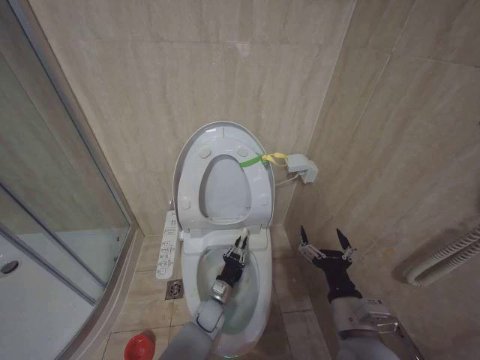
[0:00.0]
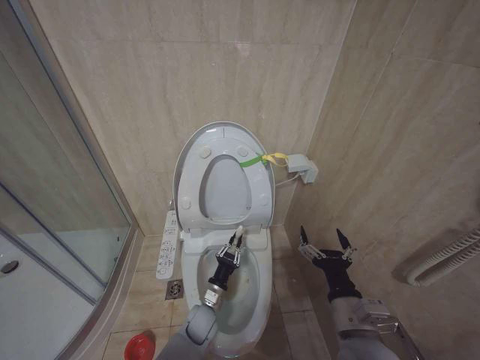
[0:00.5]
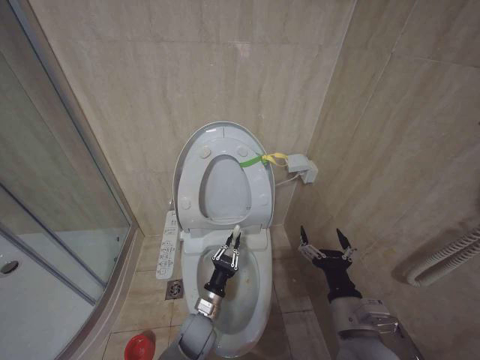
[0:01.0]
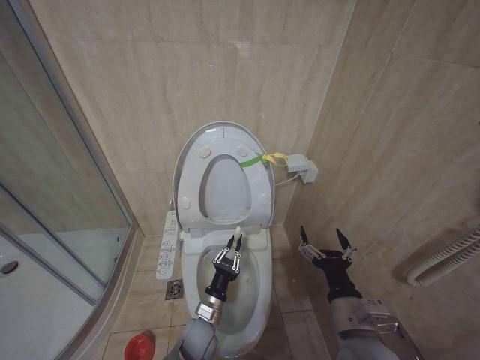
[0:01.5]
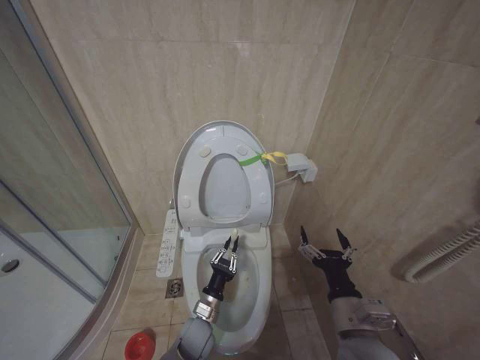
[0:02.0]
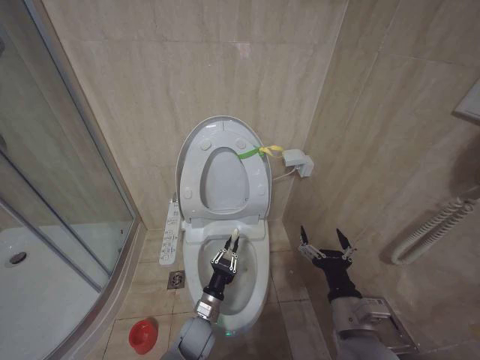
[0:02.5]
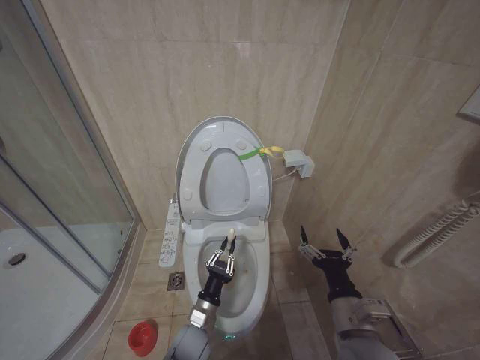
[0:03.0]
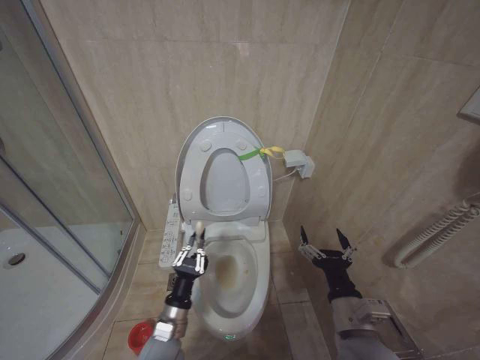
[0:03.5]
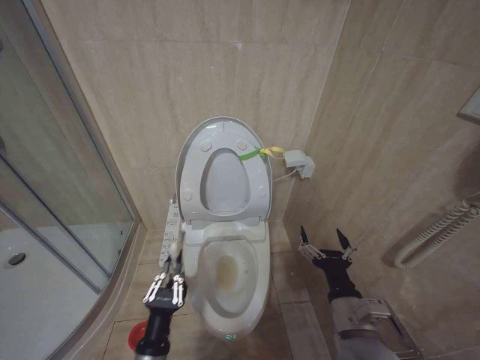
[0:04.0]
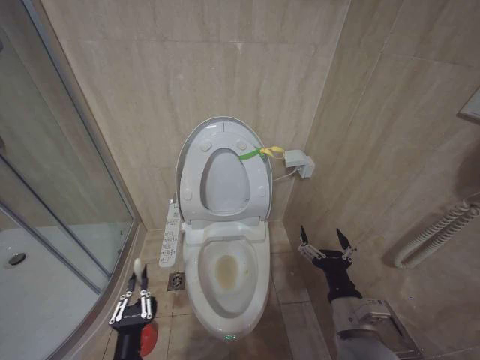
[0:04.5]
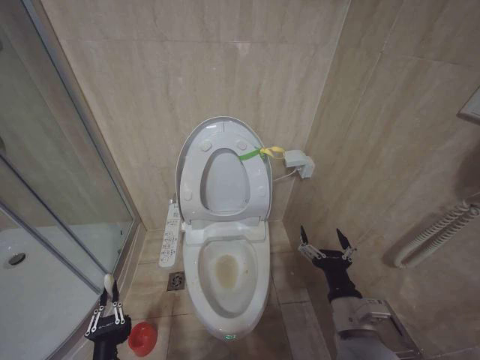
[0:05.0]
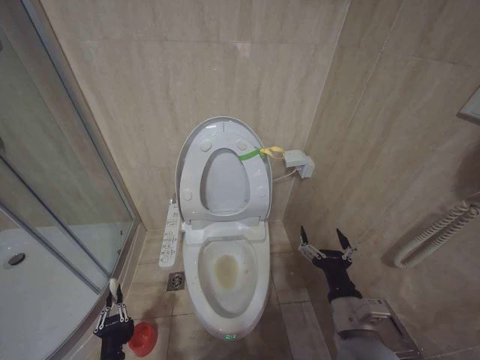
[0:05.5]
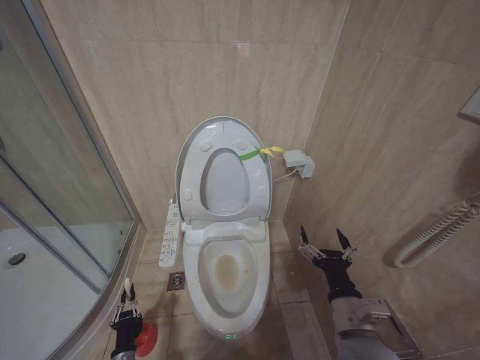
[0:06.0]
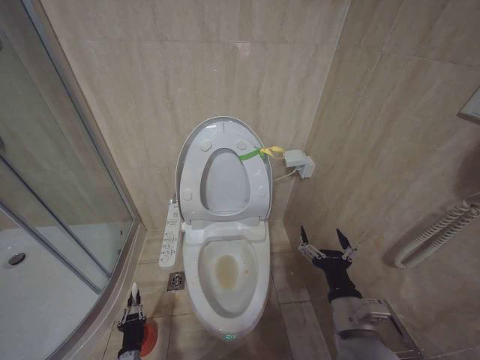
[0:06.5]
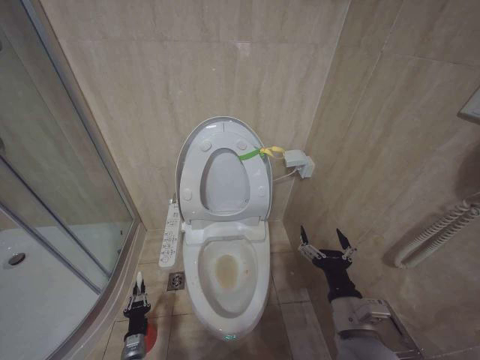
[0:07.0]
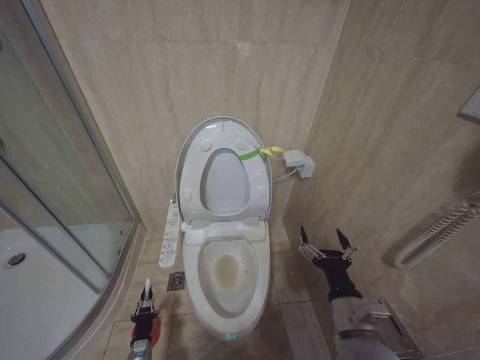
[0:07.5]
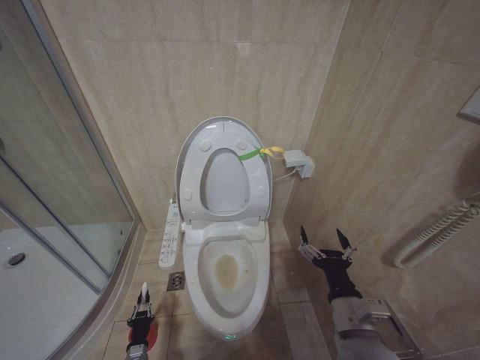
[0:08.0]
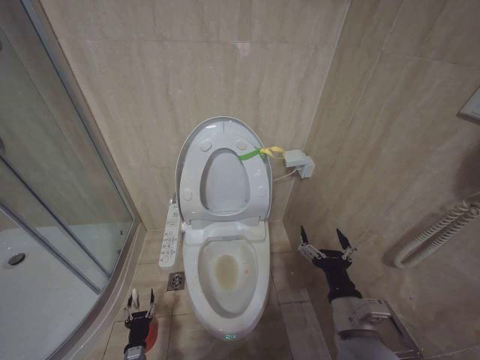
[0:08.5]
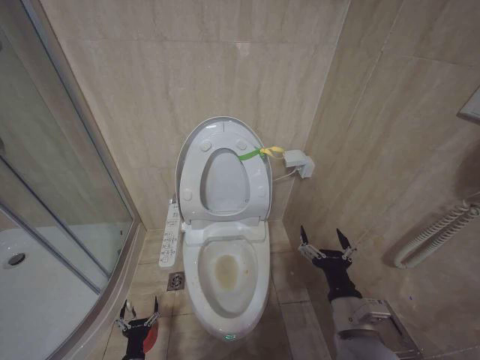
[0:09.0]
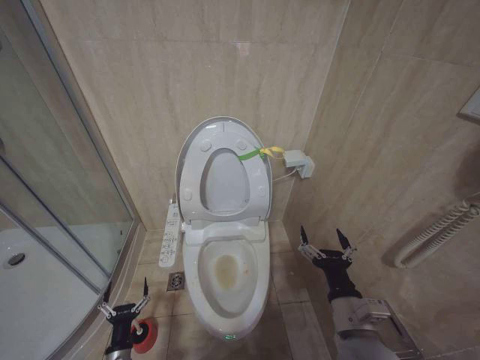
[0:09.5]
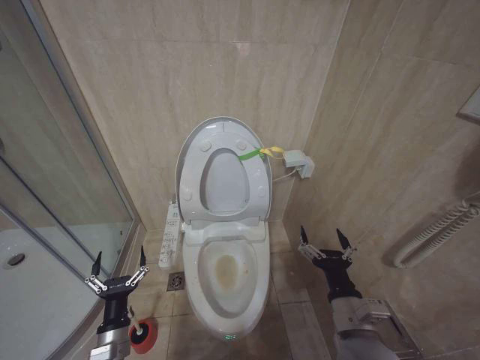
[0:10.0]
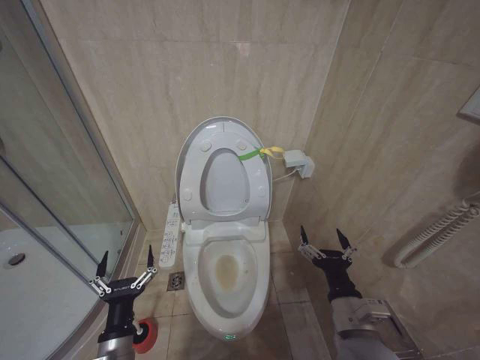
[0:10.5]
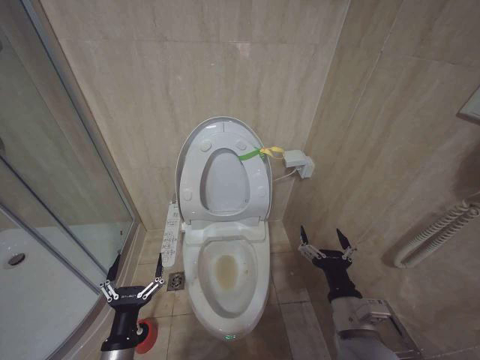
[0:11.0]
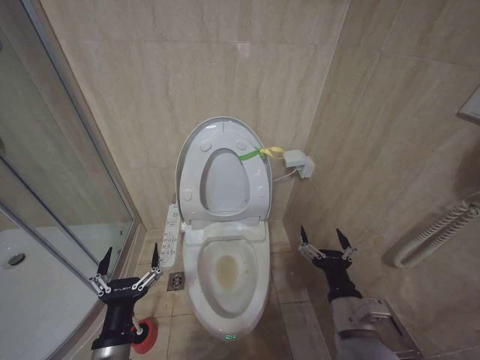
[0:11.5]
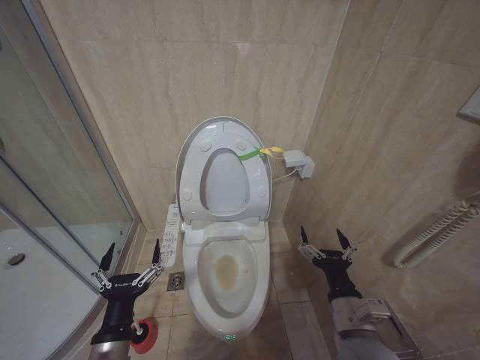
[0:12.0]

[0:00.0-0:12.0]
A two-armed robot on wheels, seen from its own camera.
Task of the whole recording: Open the toilet lid, clean the toilet bowl with a toilet brush, close the toilet lid, and flush.
0:00.0 to 0:02.0: The left gripper heads backward and upward, covering about 10 cm.
0:02.0 to 0:04.0: The left gripper goes roughly 20 cm backward, upward and to the left.
0:04.0 to 0:06.0: The left gripper shifts about 25 cm downward and to the left.
0:06.0 to 0:08.0: The left gripper heads downward, covering some 5 cm.
0:08.0 to 0:10.0: The left gripper shifts about 25 cm upward, and opens.
0:10.0 to 0:12.0: The left gripper shifts about 15 cm upward and backward.

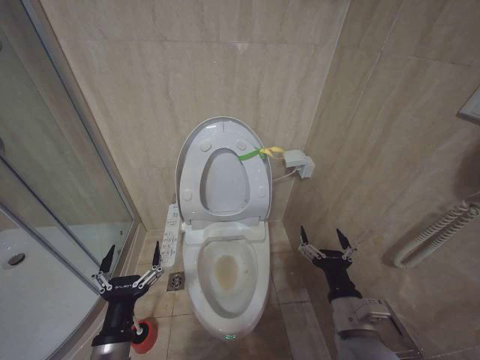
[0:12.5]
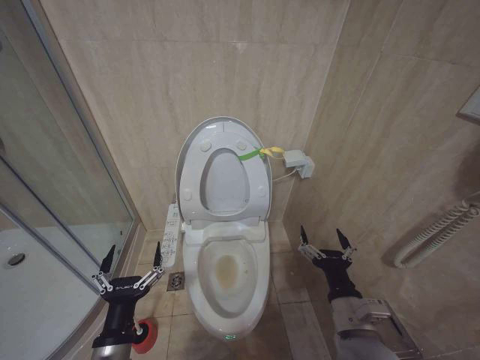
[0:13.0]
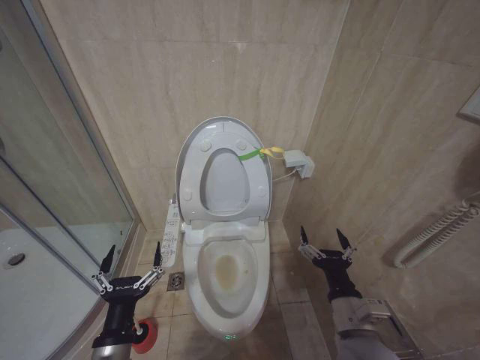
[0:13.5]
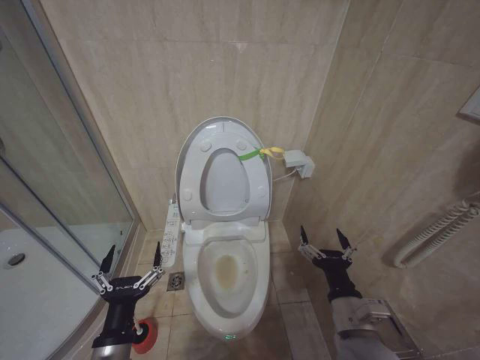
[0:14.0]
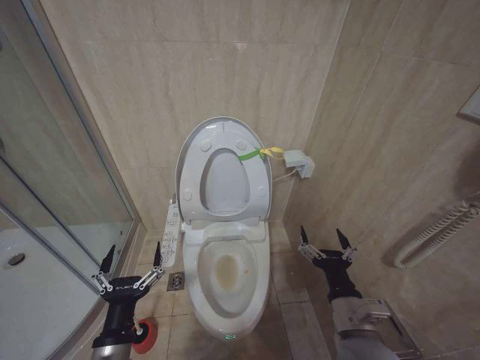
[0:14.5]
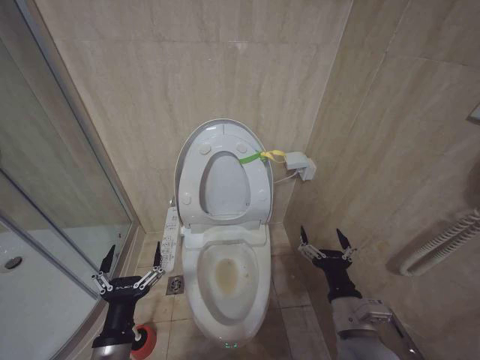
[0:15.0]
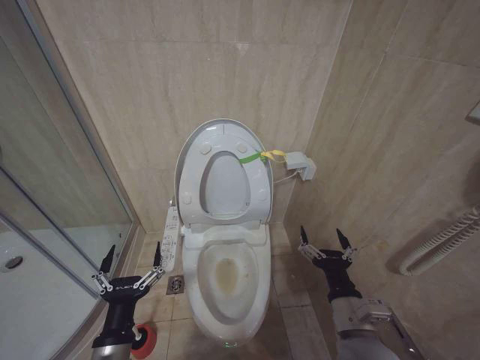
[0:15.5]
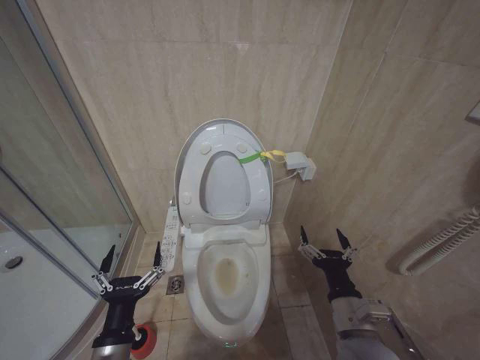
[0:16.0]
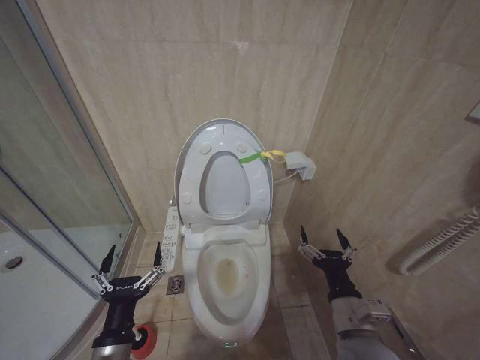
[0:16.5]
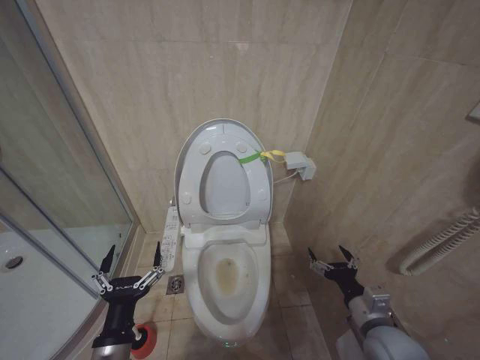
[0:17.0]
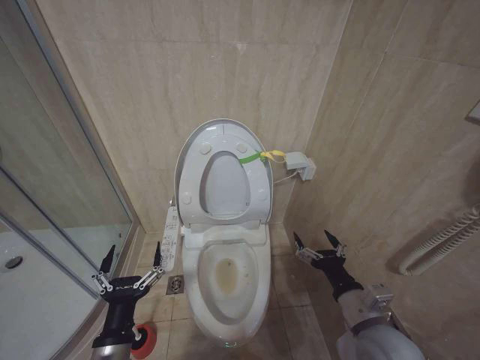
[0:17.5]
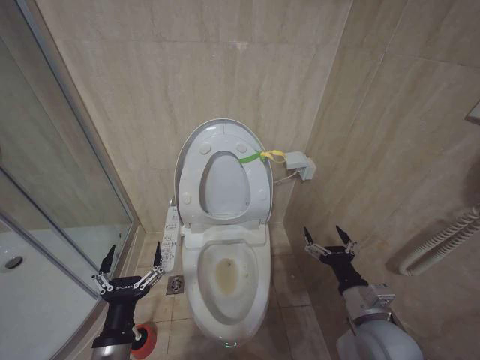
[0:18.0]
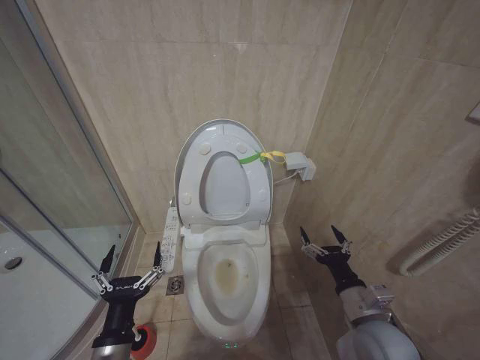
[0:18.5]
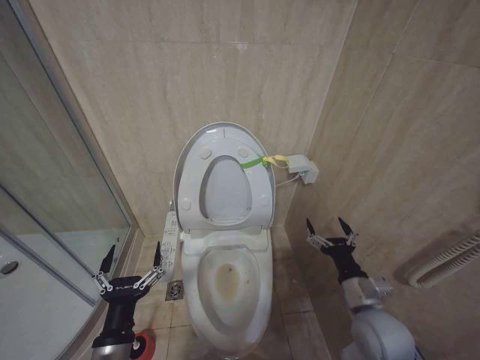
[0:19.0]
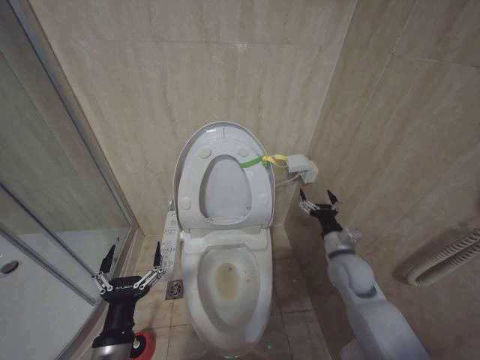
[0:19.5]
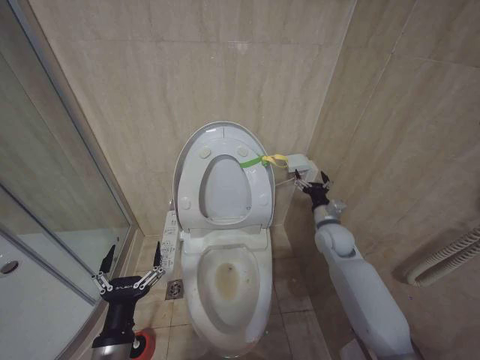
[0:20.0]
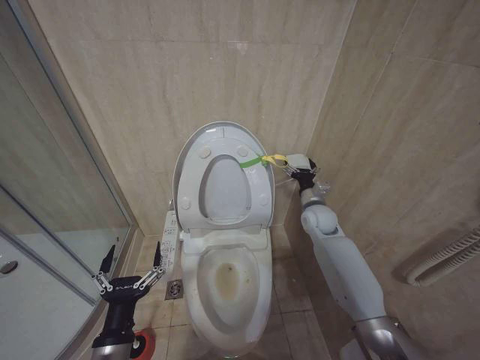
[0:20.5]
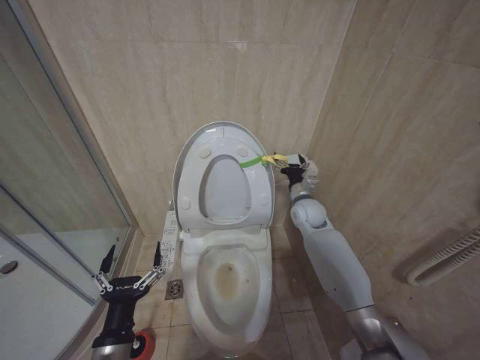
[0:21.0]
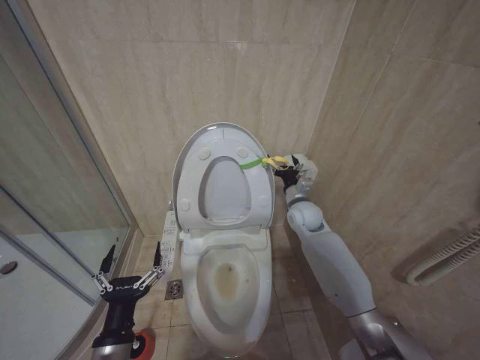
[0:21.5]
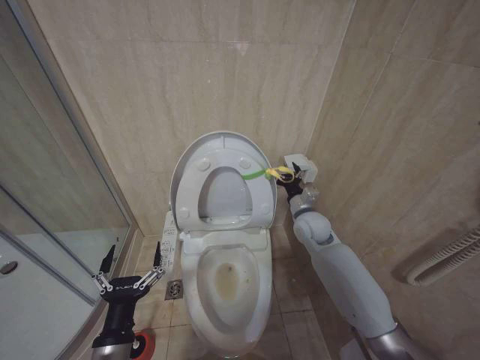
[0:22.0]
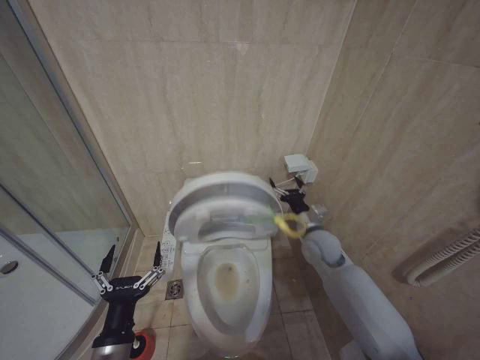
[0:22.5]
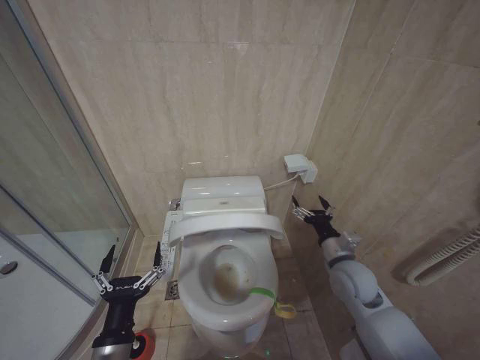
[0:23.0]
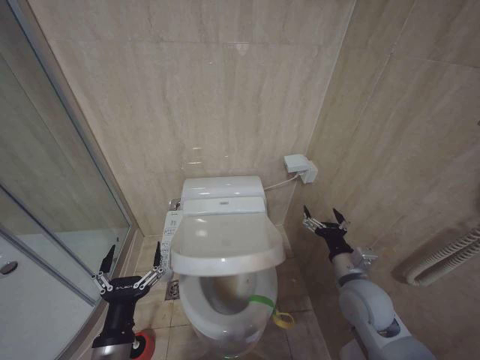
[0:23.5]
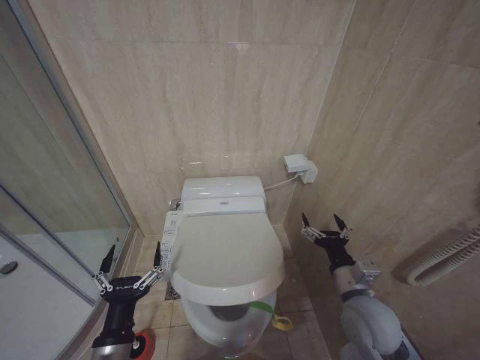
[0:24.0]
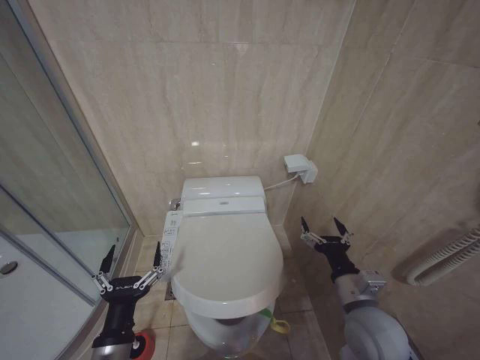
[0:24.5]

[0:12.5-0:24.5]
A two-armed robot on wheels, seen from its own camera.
Task of the whole recording: Open the toilet lid, clean the toilet bowl with a toilet brush, close the toilet lid, and flush.
0:12.5 to 0:16.5: Neither gripper changes place.
0:16.5 to 0:18.5: The right gripper travels to the right by approximately 5 cm.
0:18.5 to 0:20.5: The right gripper travels forward by approximately 30 cm.
0:20.5 to 0:22.5: The right gripper is displaced backward by roughly 5 cm.
0:22.5 to 0:24.5: The right gripper heads backward, covering approximately 20 cm.

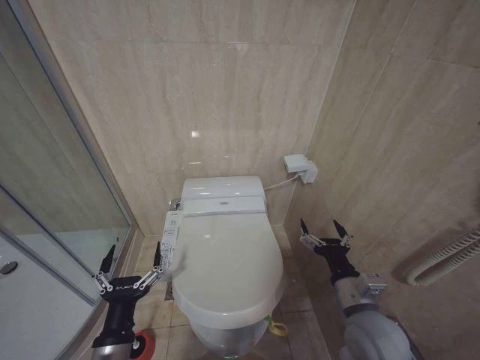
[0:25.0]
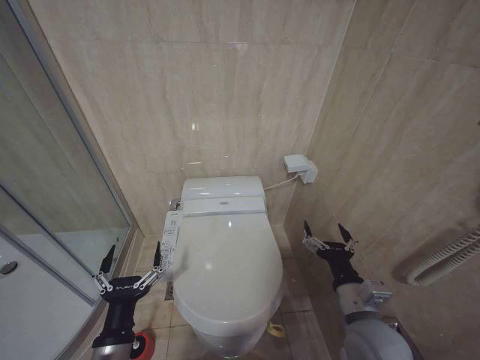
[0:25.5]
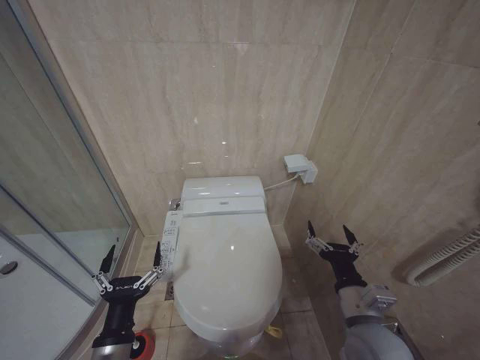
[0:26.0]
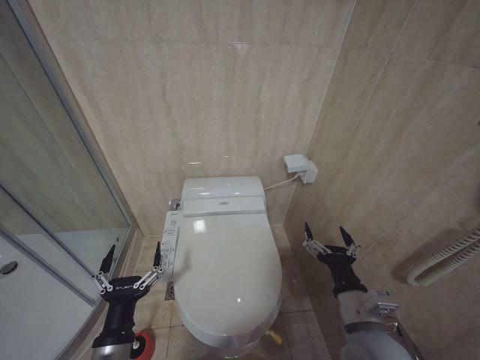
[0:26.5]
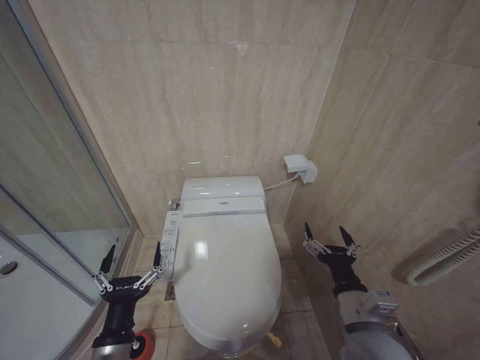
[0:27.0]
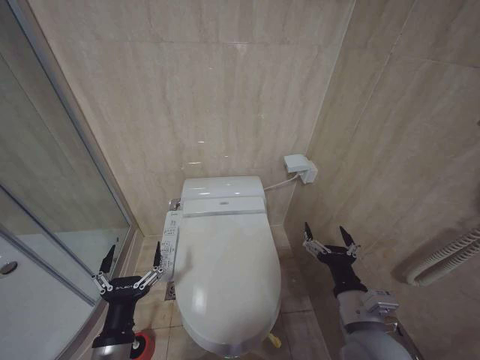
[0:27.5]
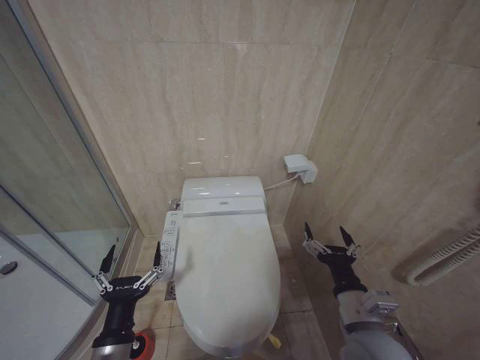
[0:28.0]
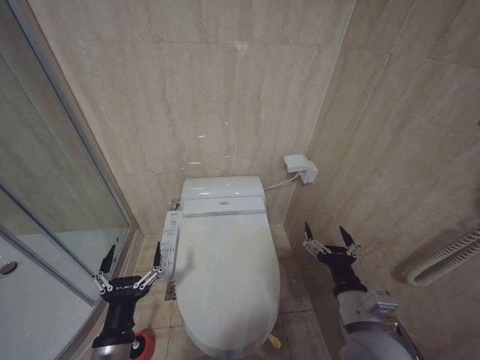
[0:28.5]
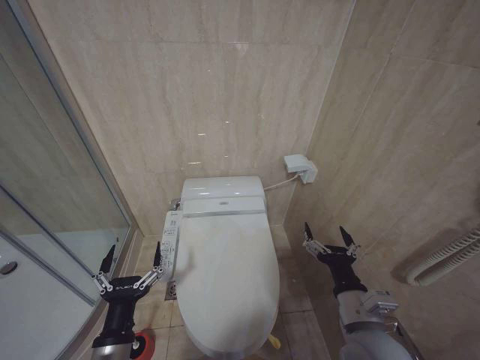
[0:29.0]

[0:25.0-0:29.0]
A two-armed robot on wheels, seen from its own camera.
Task of the whole recording: Open the toilet lid, clean the toilet bowl with a toilet brush, close the toilet lid, and flush.
0:25.0 to 0:27.0: There are only small adjustments of the grippers.
0:27.0 to 0:29.0: Neither gripper changes place.
